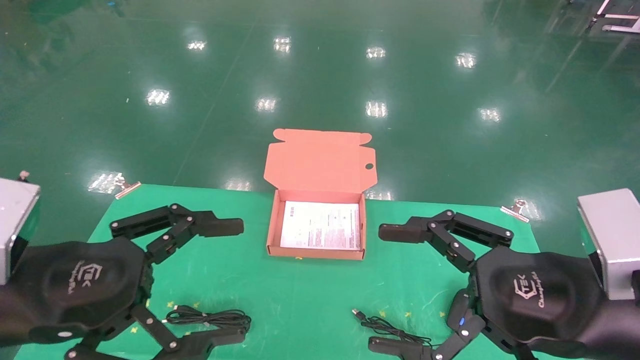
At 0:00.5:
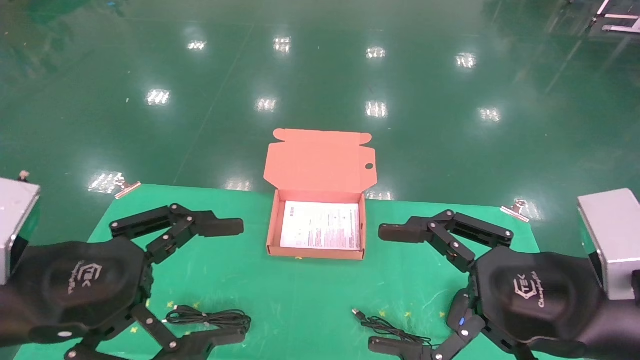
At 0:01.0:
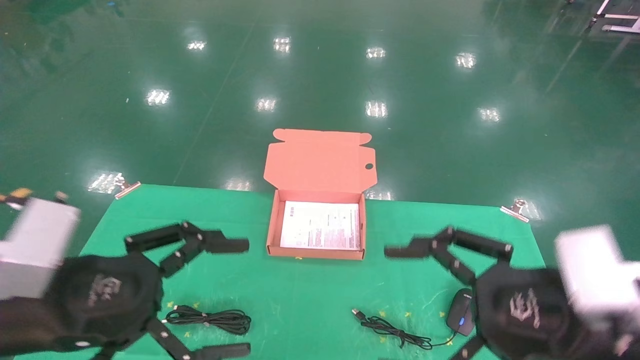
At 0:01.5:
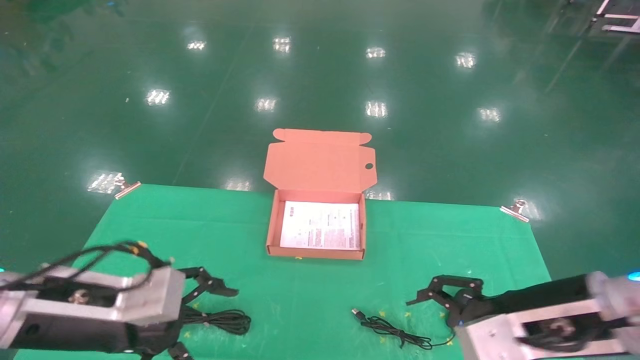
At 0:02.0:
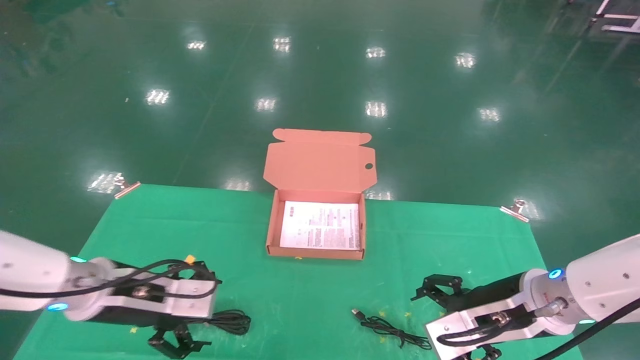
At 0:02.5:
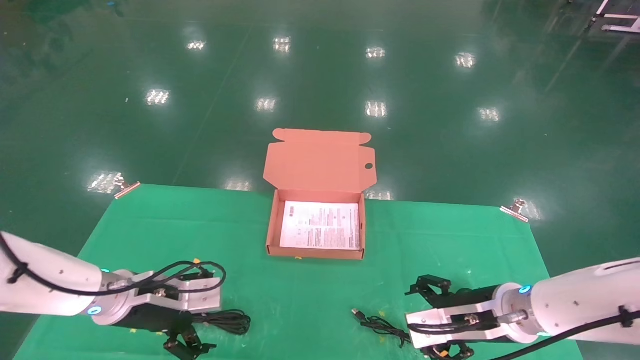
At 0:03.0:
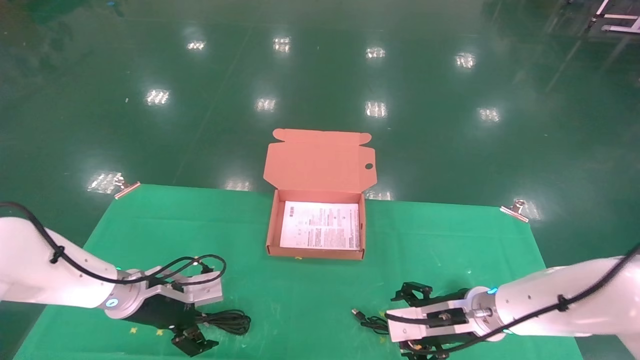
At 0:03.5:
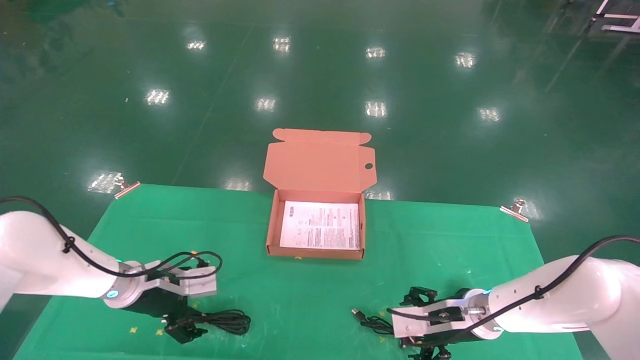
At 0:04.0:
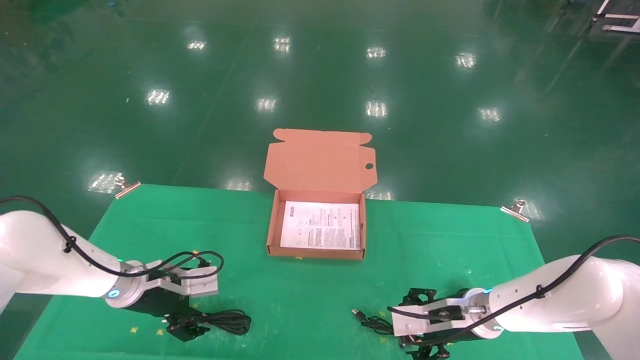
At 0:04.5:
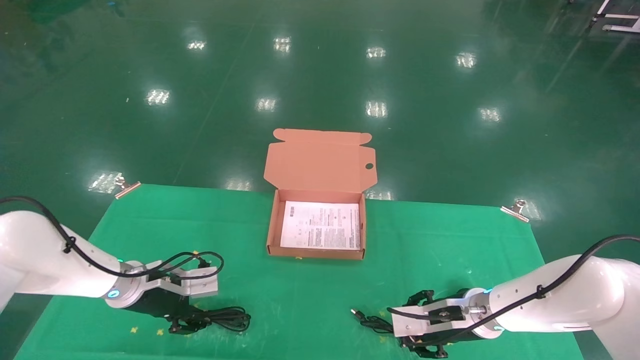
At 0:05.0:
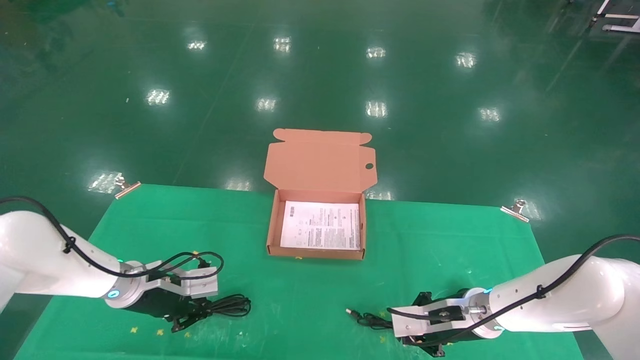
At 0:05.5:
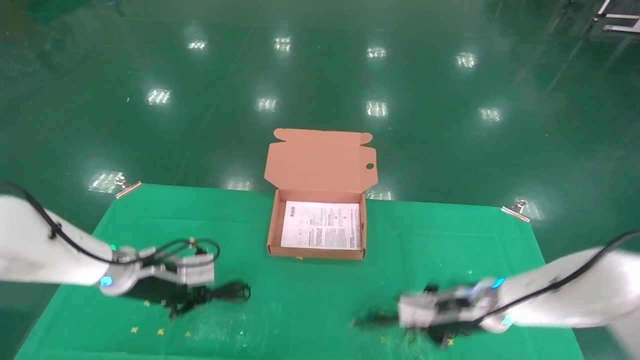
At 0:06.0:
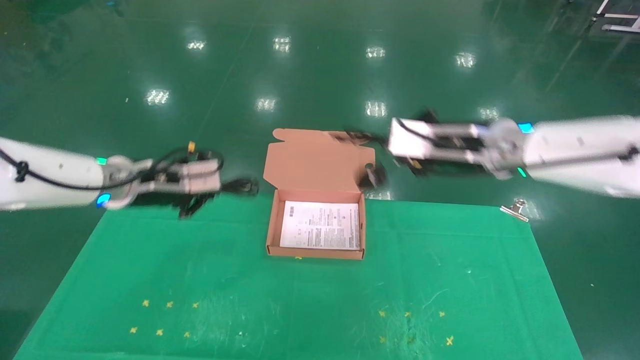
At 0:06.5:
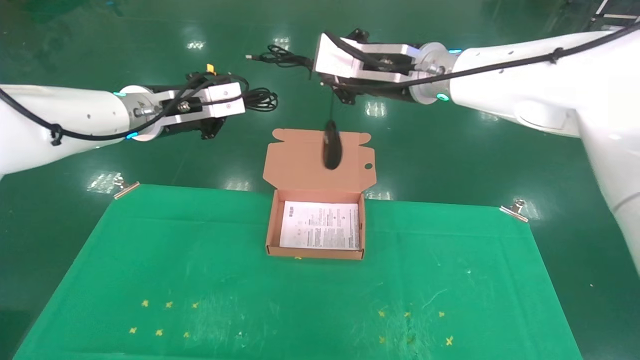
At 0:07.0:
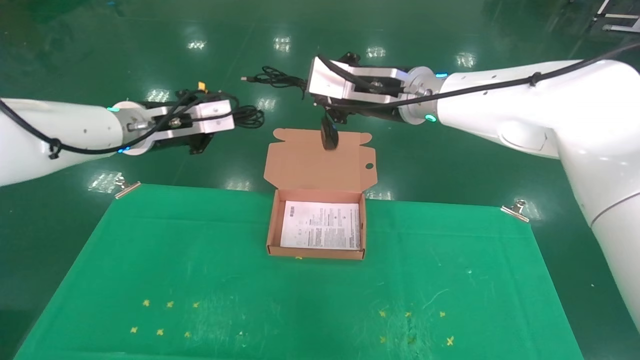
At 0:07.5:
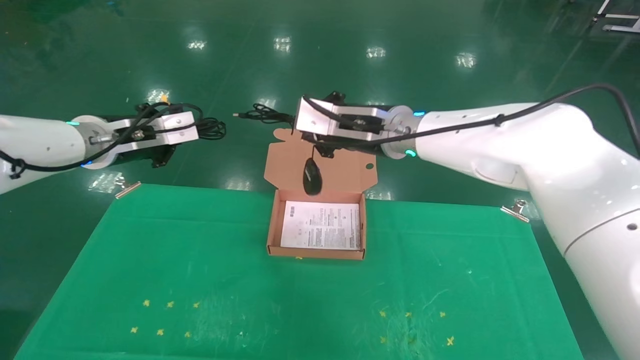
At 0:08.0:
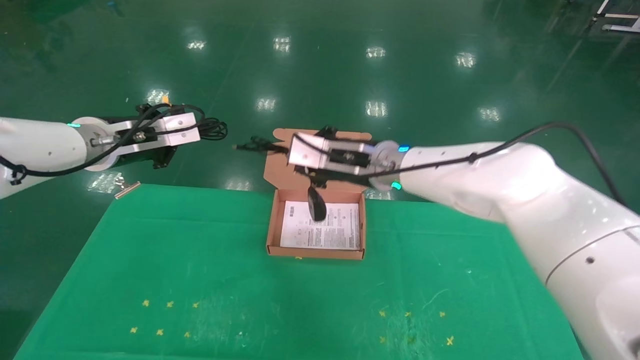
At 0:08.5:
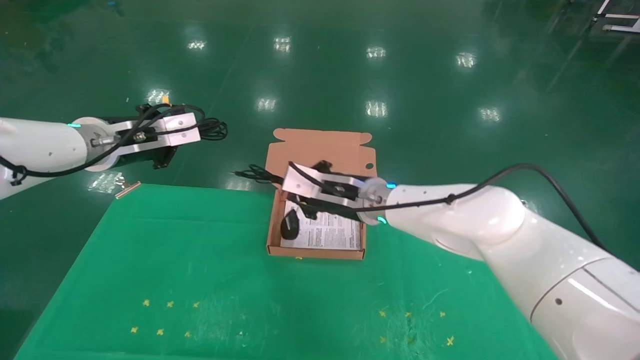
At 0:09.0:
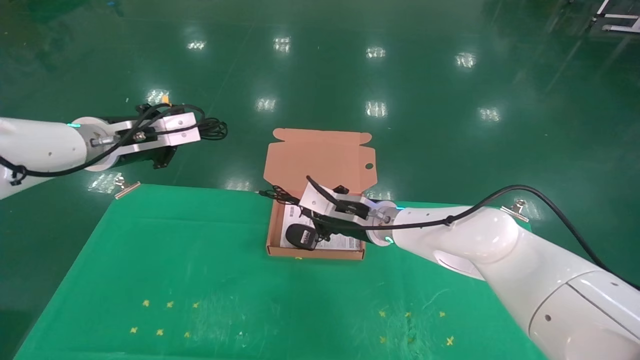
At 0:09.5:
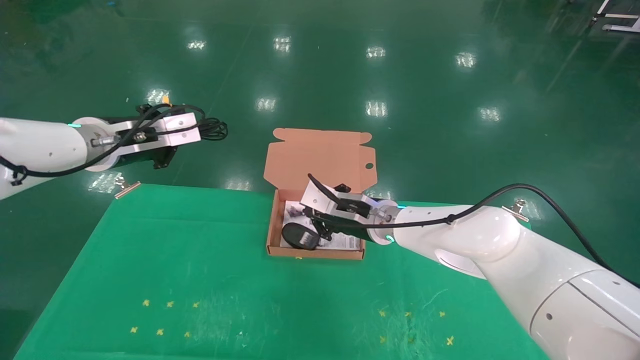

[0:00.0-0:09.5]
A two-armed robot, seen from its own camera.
Task of the whole recording: grasp data cable left put into box grasp mouse right put into box.
Step, 0:01.5 to 0:05.5: Grab and pick up both the mouse and power cord from the accessory packaging area at the same time.
0:00.0 to 0:02.0: Both grippers travel together forward and downward, some 15 cm.
0:02.0 to 0:04.0: The left gripper is displaced forward and downward by approximately 10 cm. Meanwhile the right gripper is displaced downward and forward by about 15 cm.
0:04.0 to 0:05.5: The left gripper closes up. Meanwhile the right gripper heads upward, covering about 5 cm, and closes.
0:05.5 to 0:07.5: The right gripper shifts about 25 cm upward and to the left. The left gripper moves upward, roughly 20 cm.
0:07.5 to 0:09.5: The right gripper is displaced downward by some 15 cm.

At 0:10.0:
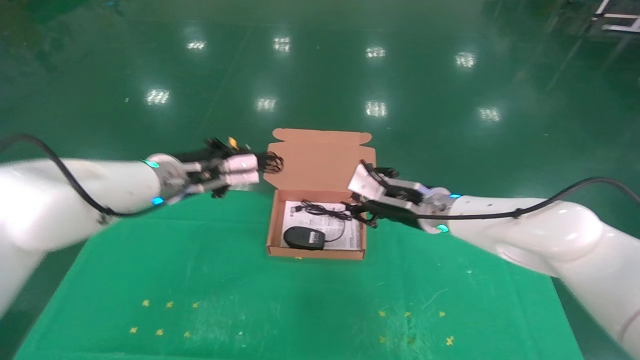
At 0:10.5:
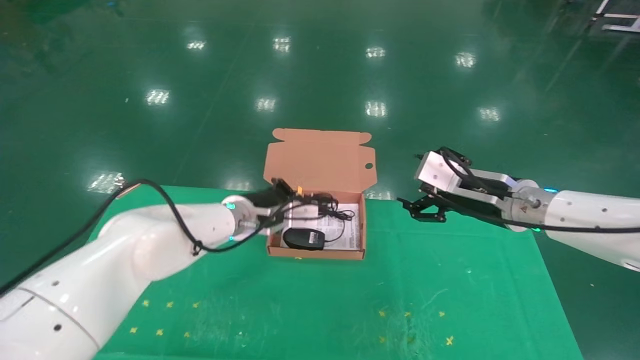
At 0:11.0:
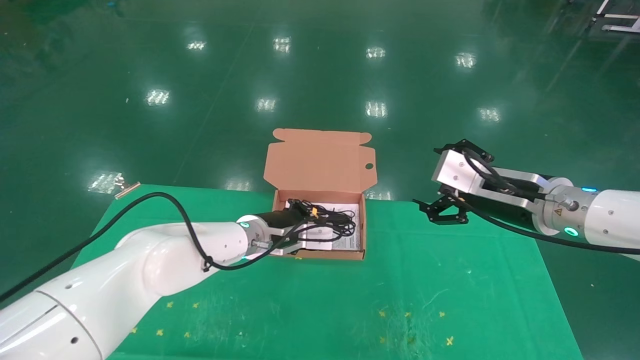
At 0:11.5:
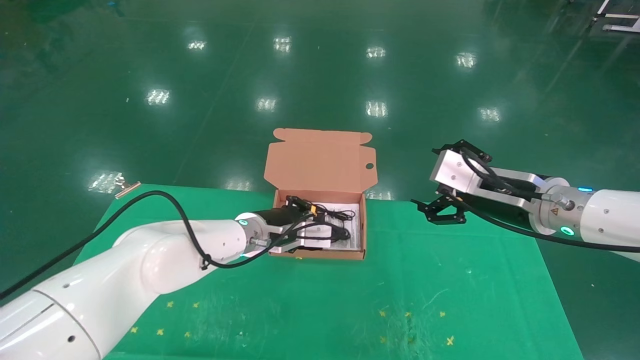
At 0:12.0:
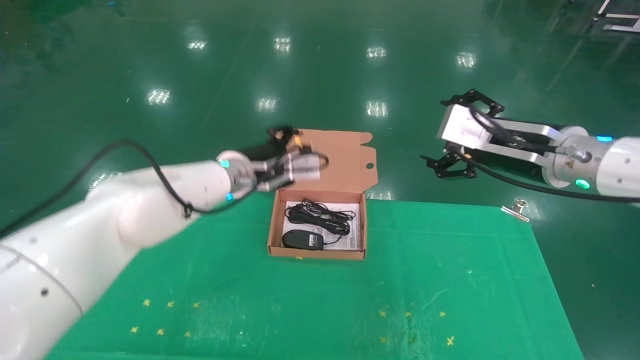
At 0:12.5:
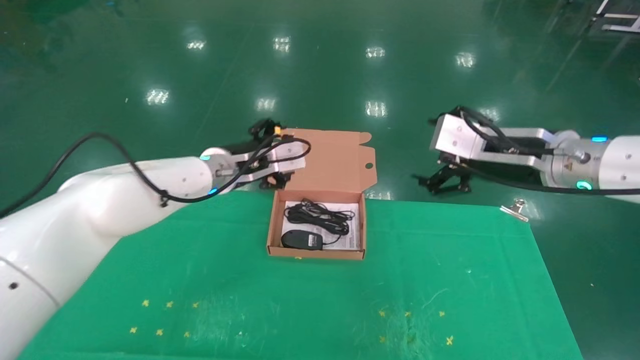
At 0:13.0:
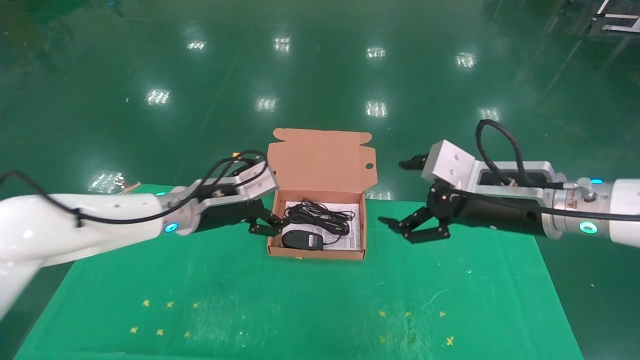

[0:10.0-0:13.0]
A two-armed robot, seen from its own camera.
Task of the whole recording: grasp data cable left put into box grasp mouse right put into box.
0:10.0 to 0:11.5: The left gripper travels to the right and downward by some 15 cm. The right gripper shifts approximately 15 cm to the right and backward, and opens up.
0:11.5 to 0:13.0: The right gripper shifts by approximately 5 cm. Meanwhile the left gripper goes roughly 10 cm to the left and upward, and opens its fingers.
